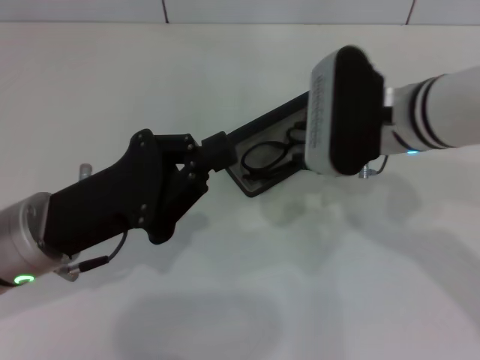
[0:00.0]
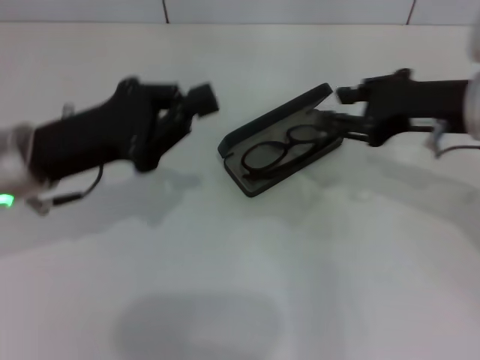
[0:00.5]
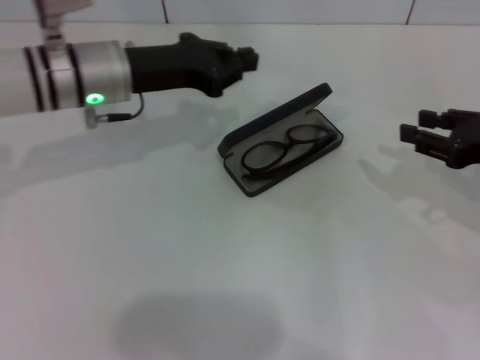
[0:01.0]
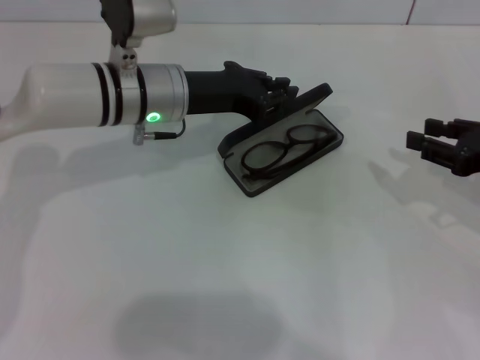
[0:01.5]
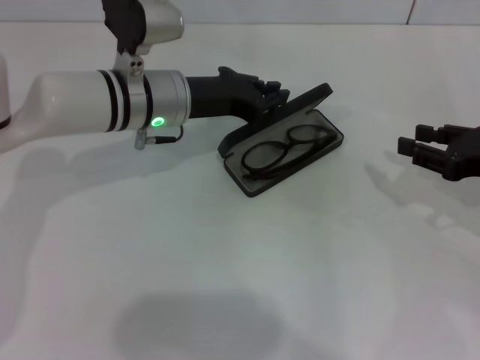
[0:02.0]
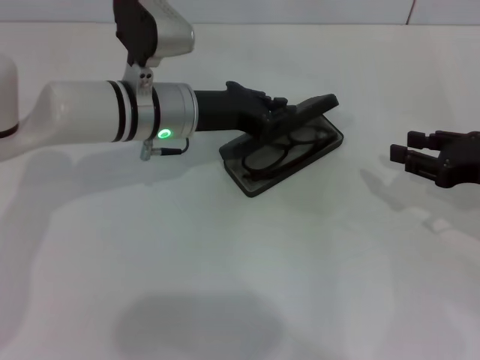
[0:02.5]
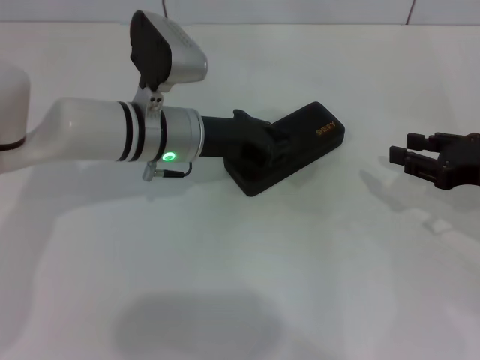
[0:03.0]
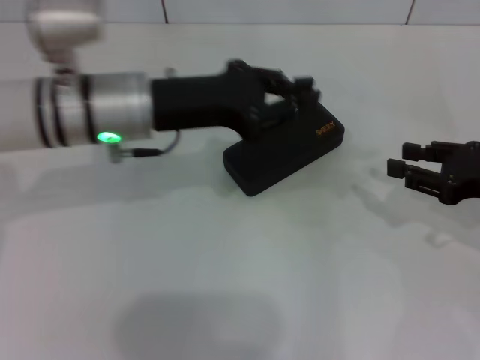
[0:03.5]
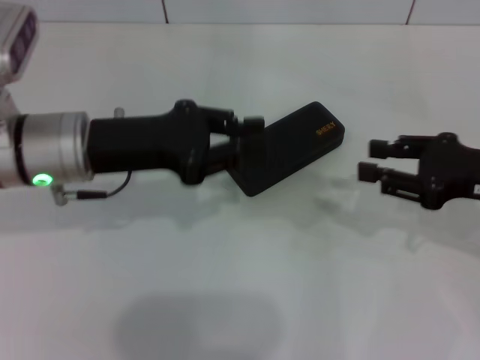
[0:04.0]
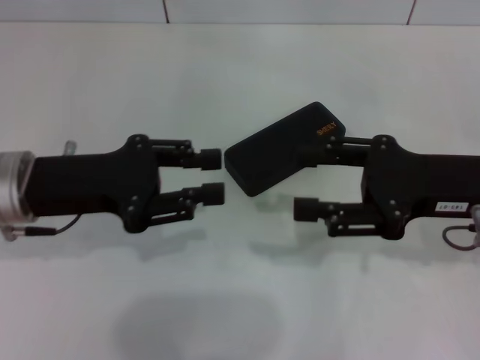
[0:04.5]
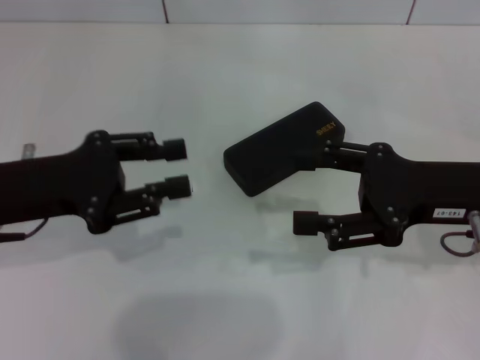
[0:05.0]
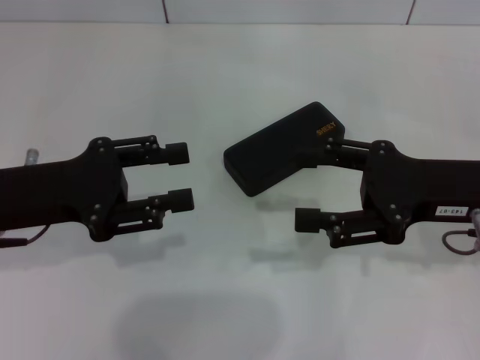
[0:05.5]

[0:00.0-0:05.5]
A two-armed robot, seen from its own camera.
Step, 0:00.5 to 0:03.0: Close the glasses case with your left hand.
0:00.0 to 0:02.0: The right gripper travels to the right by some 20 cm, while the left gripper shifts roughly 20 cm forward and to the right.
0:02.0 to 0:03.5: The left gripper moves backward, some 5 cm.
0:03.5 to 0:05.5: The left gripper is displaced to the left and backward by some 15 cm, and opens up; the right gripper shifts some 5 cm to the left, and opens its fingers.

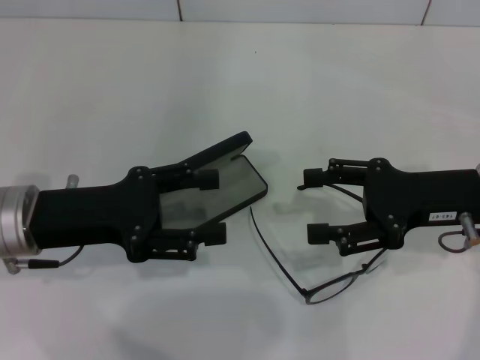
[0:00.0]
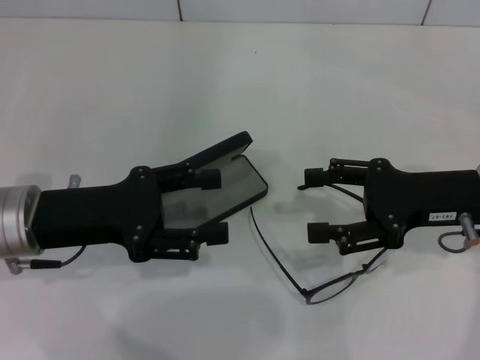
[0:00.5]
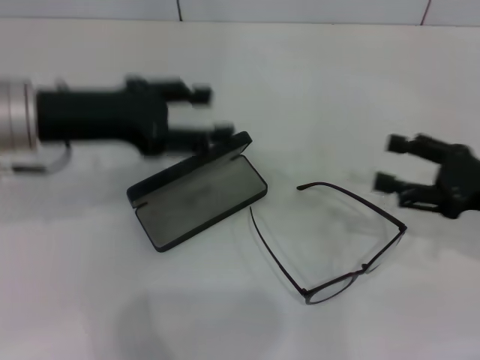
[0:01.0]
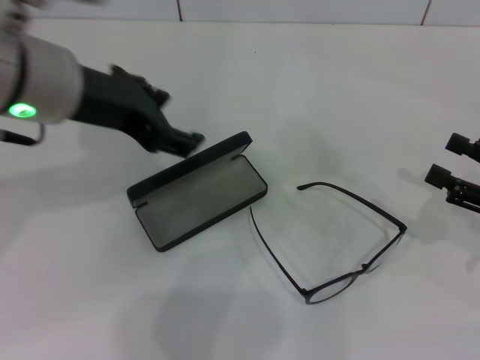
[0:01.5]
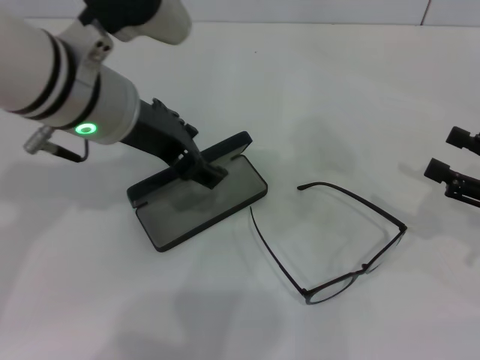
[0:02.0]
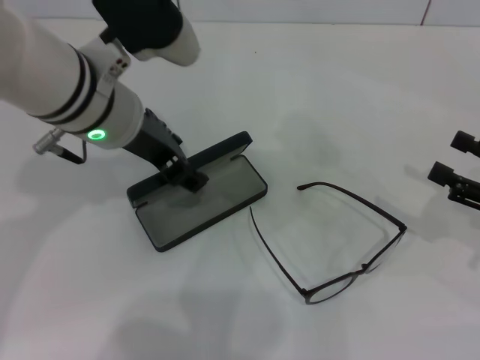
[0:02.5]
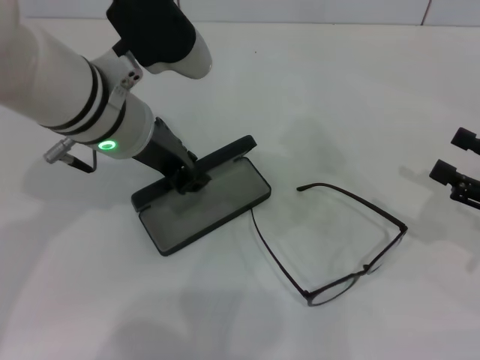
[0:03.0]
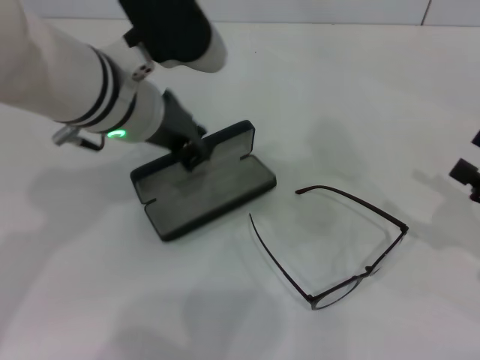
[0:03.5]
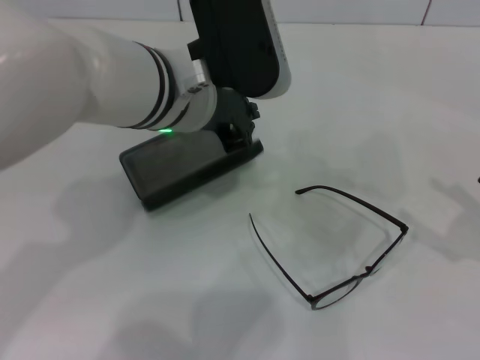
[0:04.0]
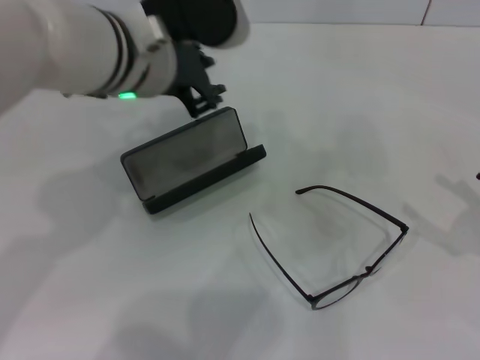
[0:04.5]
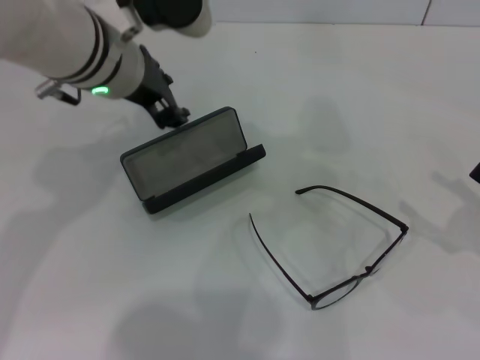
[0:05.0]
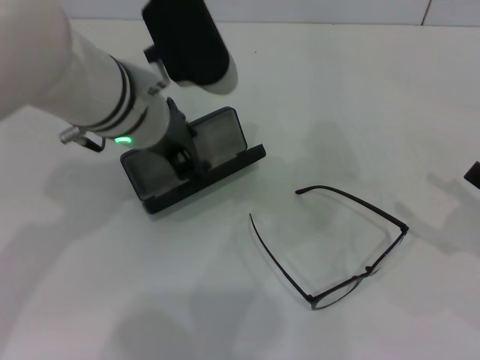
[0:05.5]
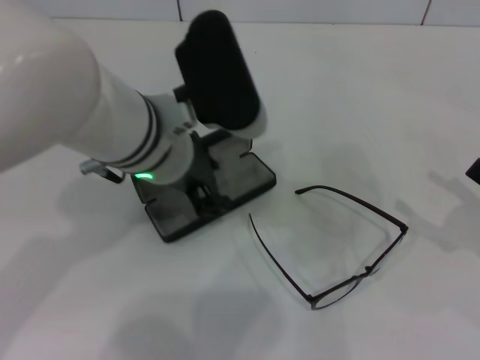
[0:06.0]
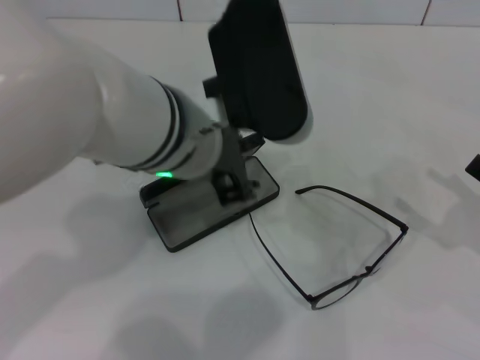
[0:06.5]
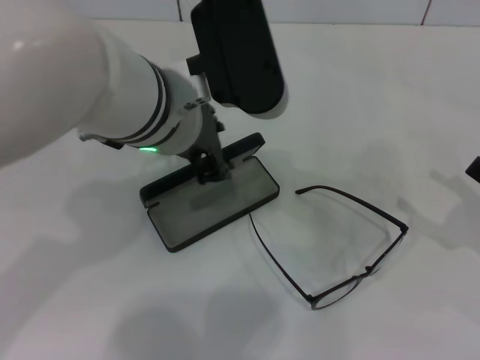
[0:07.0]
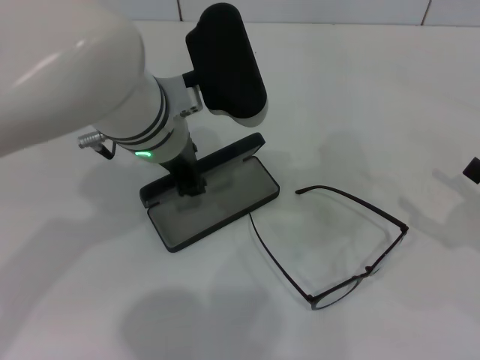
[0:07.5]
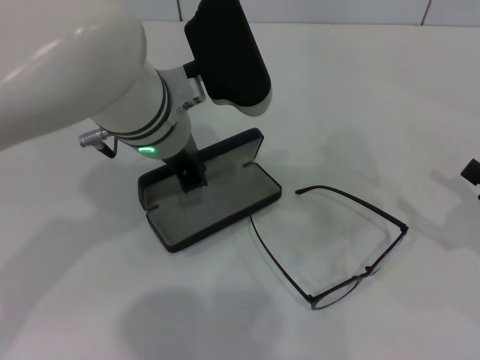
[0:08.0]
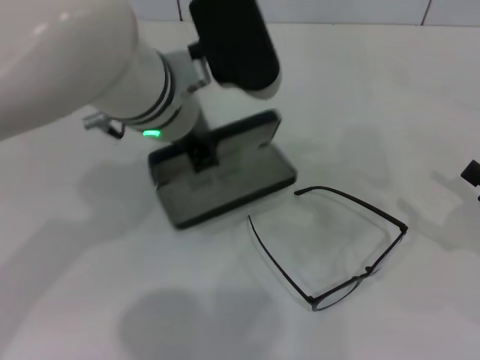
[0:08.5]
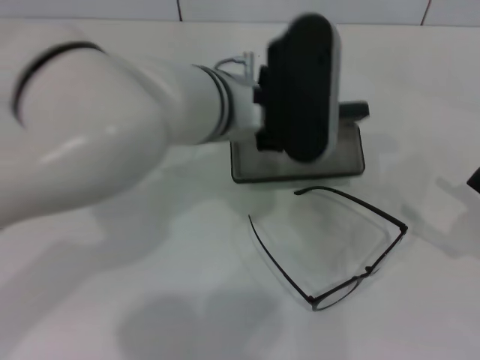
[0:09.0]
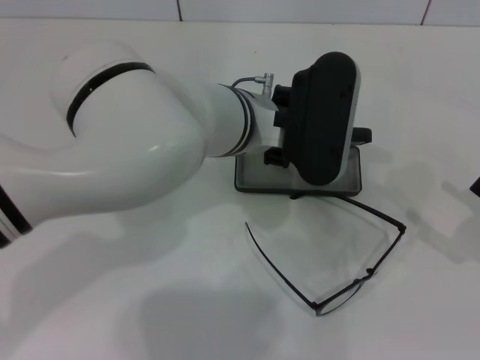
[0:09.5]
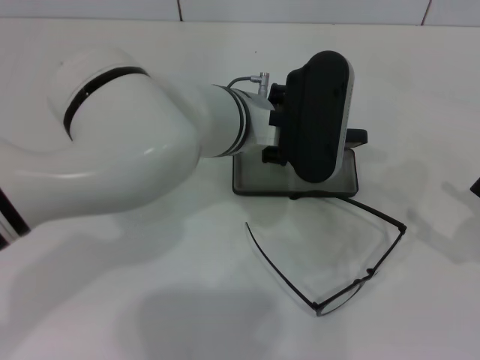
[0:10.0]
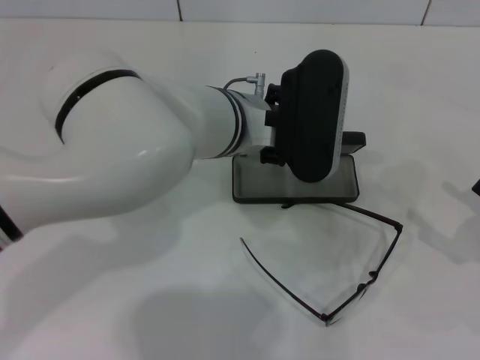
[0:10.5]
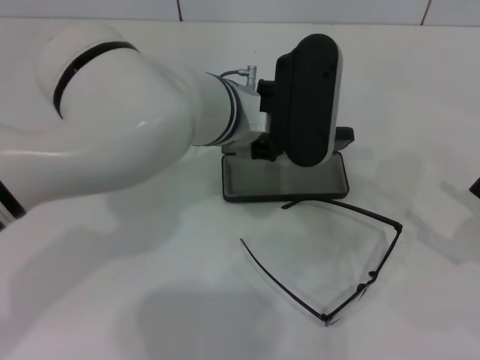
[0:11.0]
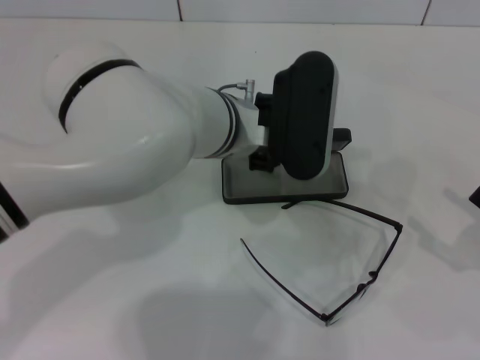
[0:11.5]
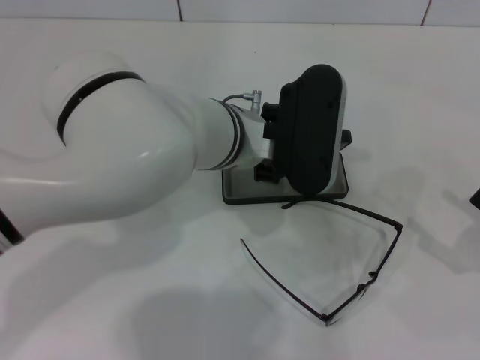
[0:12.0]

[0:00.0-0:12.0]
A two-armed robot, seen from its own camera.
Step, 0:00.0 to 0:07.5: Grab the glasses case with your left hand.
0:00.0 to 0:02.0: The right gripper travels to the right by approximately 10 cm. Meanwhile the left gripper travels upward, to the right and forward by some 15 cm.
0:02.0 to 0:04.0: The left gripper moves to the right, some 5 cm, and closes up. Meanwhile the right gripper goes about 5 cm backward.
0:04.0 to 0:06.0: The left gripper opens its fingers.
0:06.0 to 0:08.0: The grippers make only small movements.
0:08.0 to 0:10.0: The left gripper travels to the right by some 5 cm.
0:10.0 to 0:12.0: The left gripper opens up.

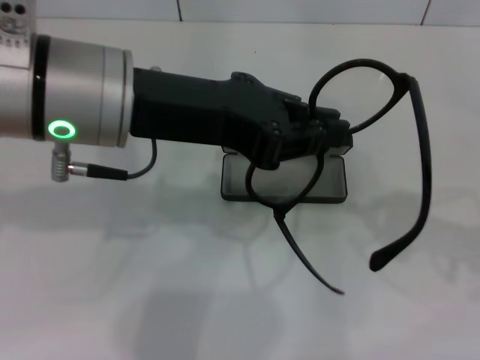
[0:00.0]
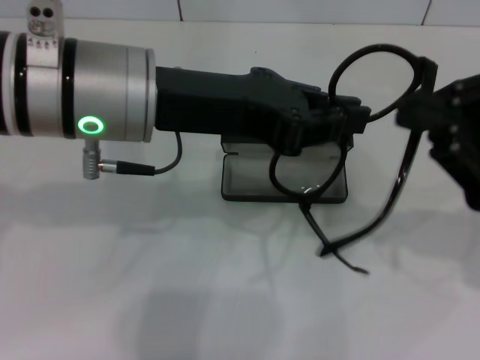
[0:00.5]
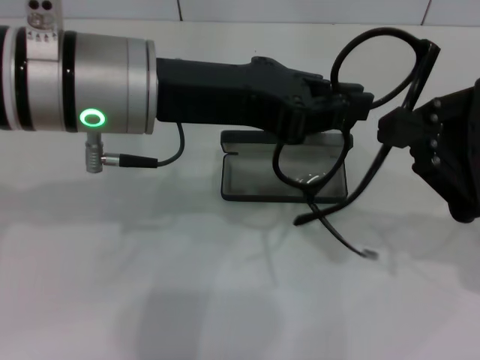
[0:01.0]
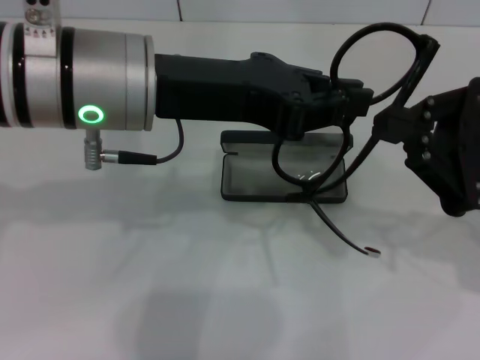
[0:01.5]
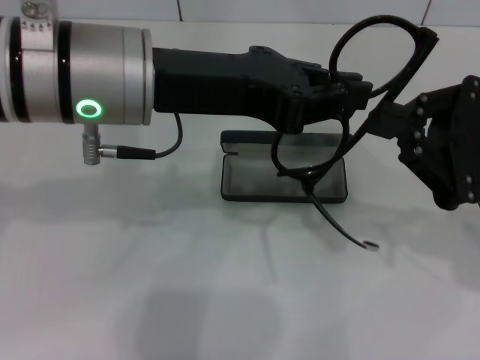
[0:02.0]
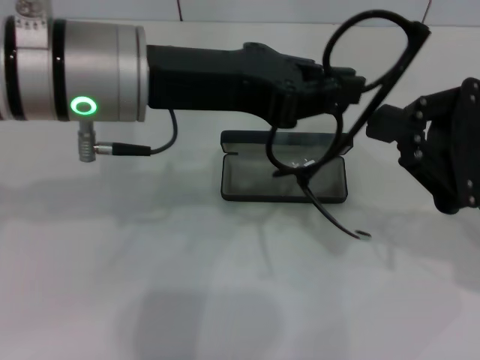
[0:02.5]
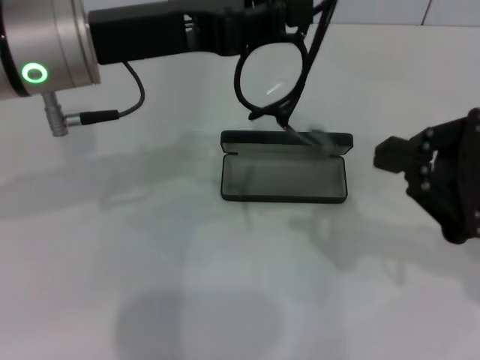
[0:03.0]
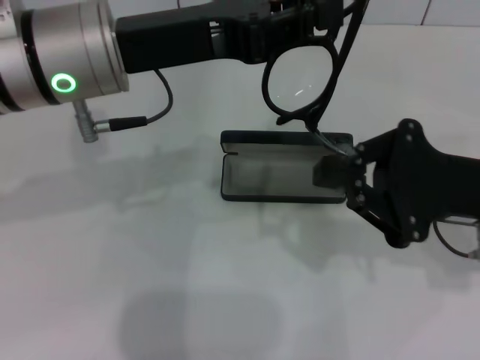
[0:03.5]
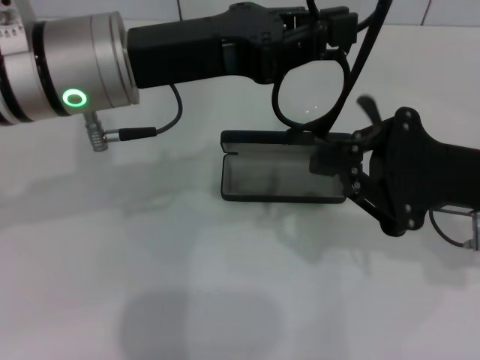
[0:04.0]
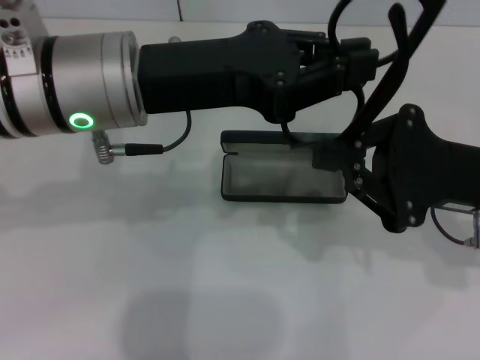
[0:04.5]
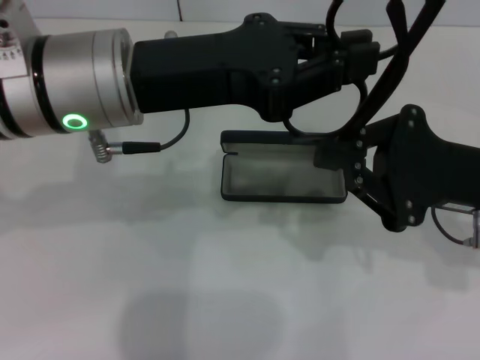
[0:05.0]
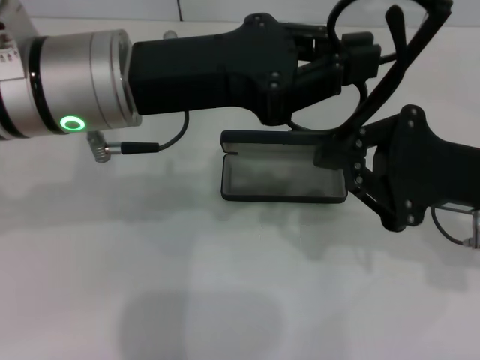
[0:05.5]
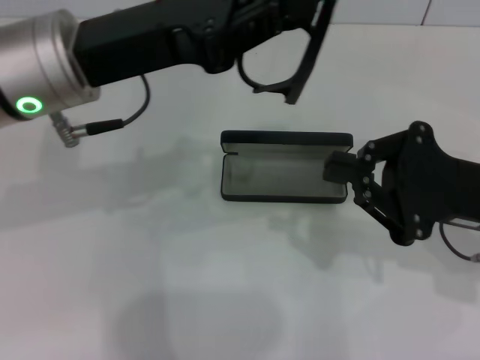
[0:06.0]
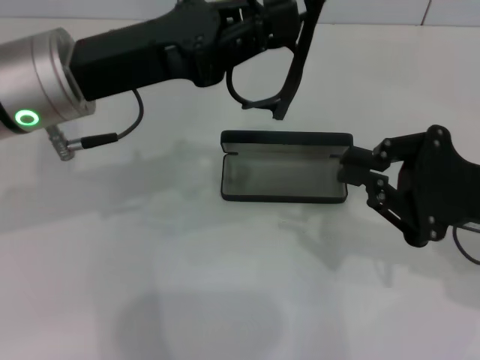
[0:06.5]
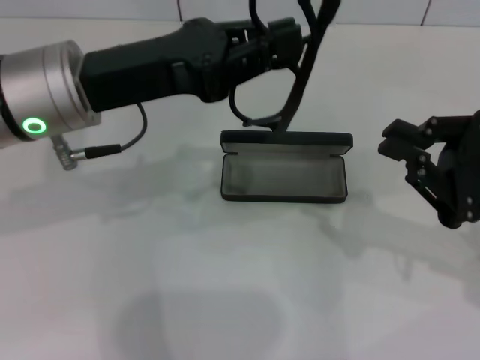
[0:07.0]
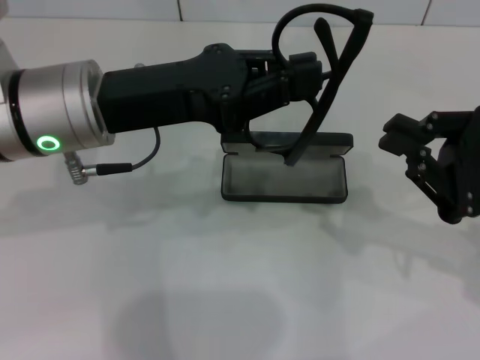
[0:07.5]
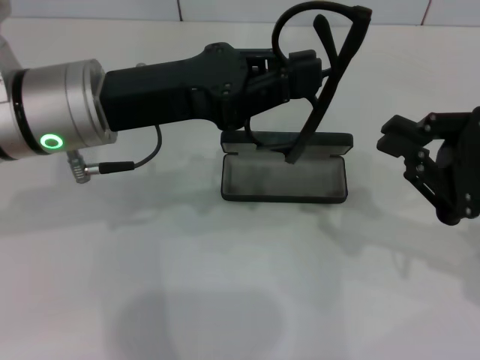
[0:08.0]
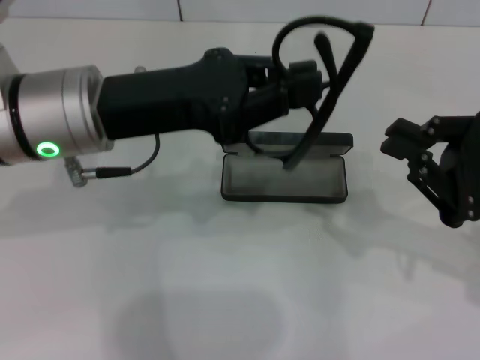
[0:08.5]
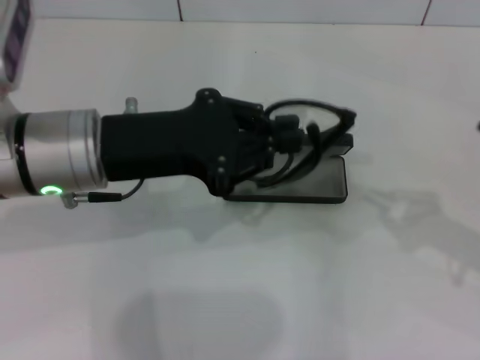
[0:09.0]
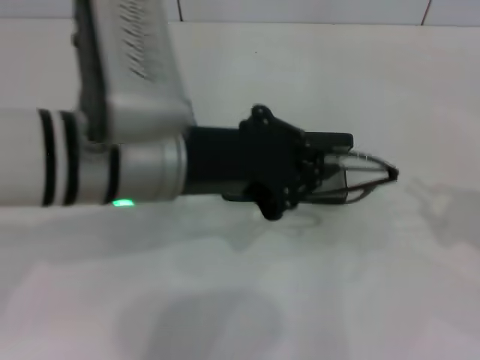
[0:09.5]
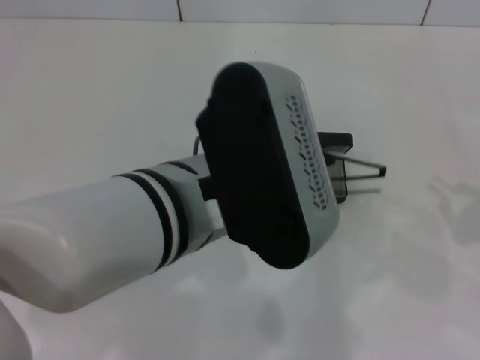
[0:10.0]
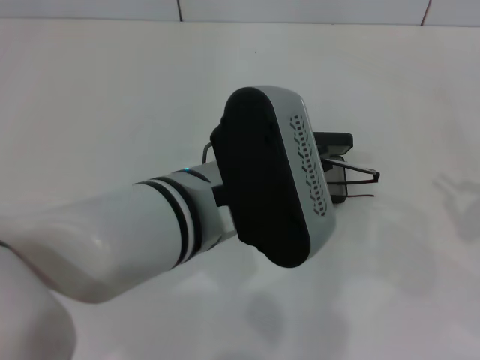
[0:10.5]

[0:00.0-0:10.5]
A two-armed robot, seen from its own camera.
Step, 0:00.0 to 0:05.0: Fold the frame with your right hand.
0:00.0 to 0:02.0: The right gripper travels to the left by approximately 5 cm.
0:08.5 to 0:10.5: Both grippers travel together to the right and backward, about 10 cm.
